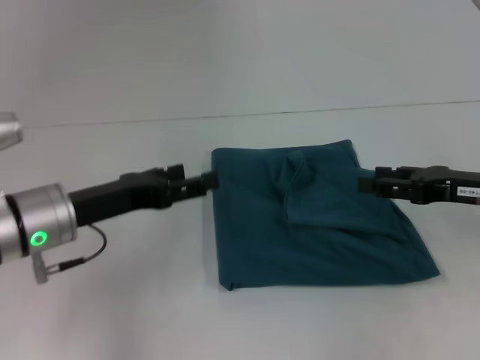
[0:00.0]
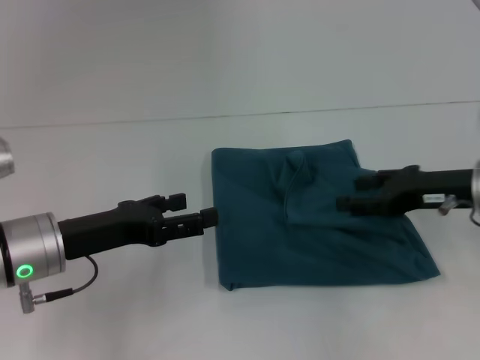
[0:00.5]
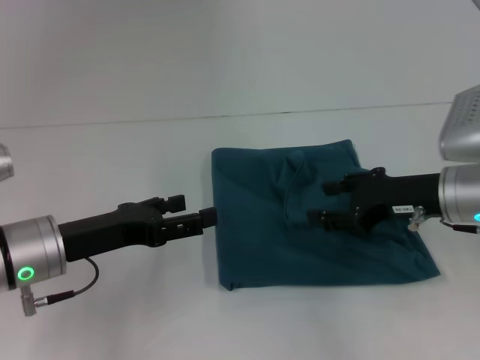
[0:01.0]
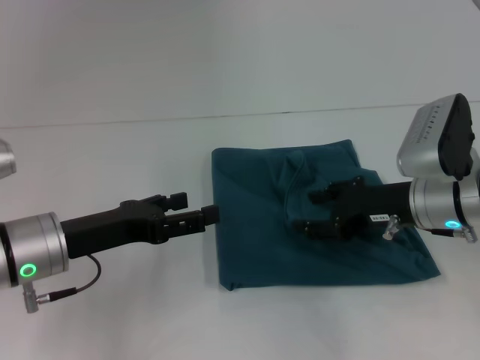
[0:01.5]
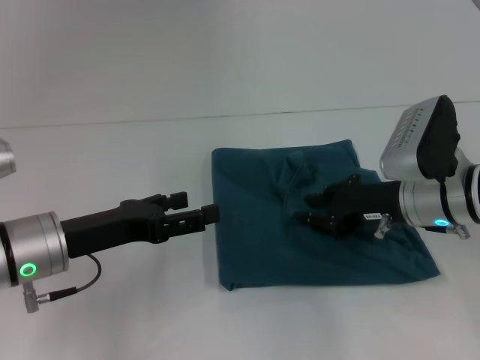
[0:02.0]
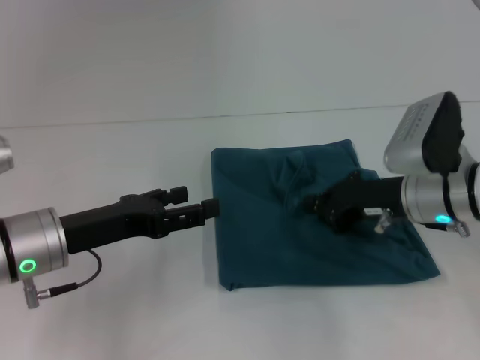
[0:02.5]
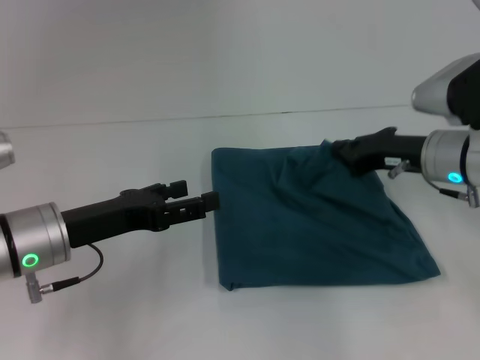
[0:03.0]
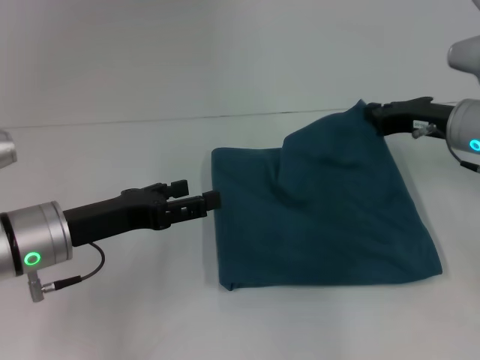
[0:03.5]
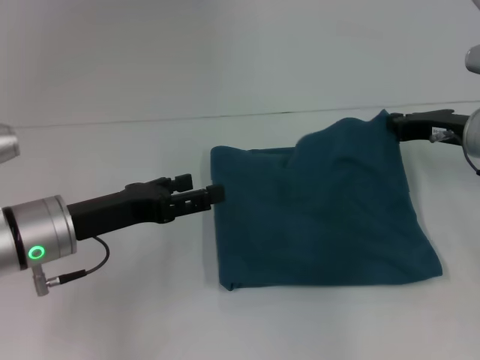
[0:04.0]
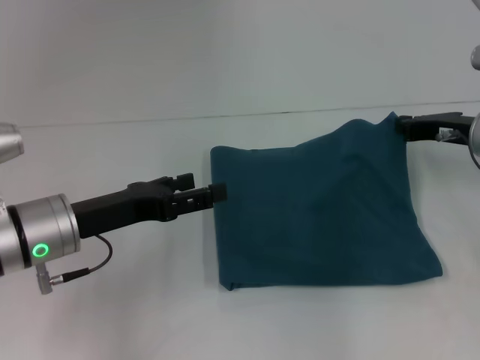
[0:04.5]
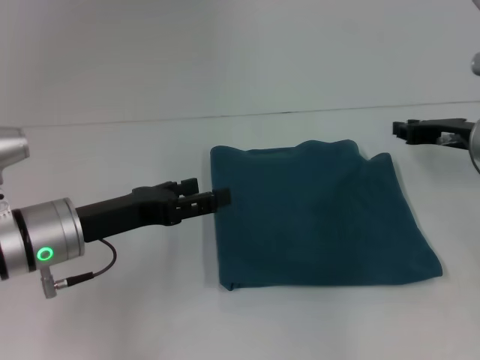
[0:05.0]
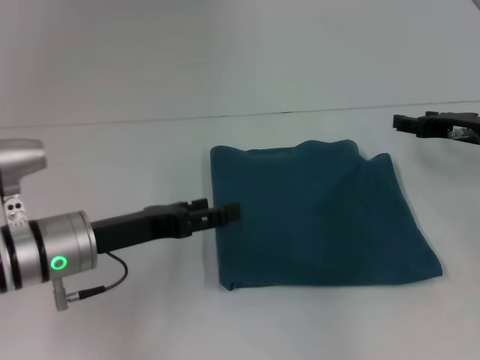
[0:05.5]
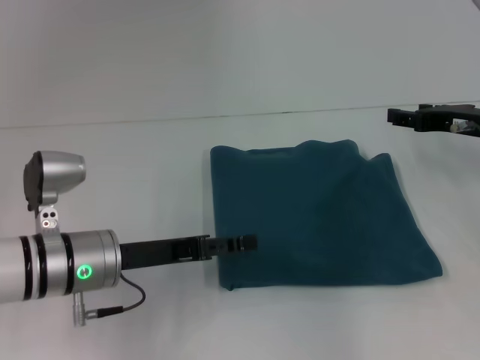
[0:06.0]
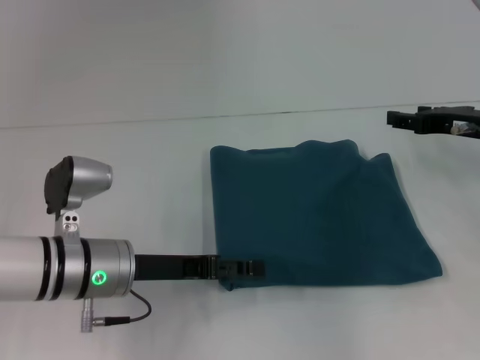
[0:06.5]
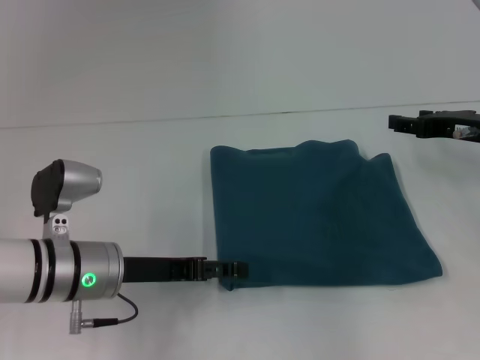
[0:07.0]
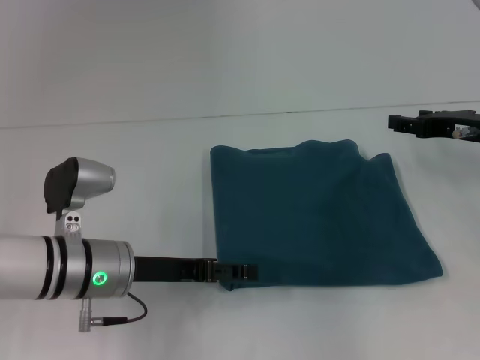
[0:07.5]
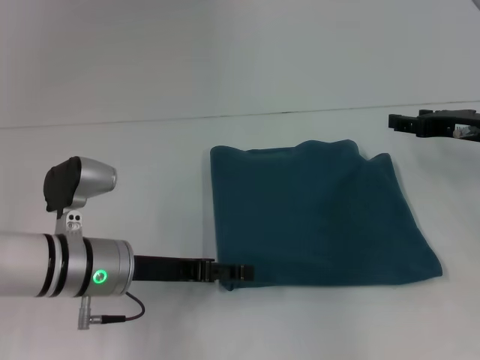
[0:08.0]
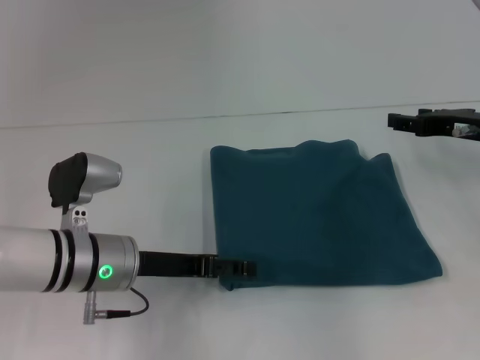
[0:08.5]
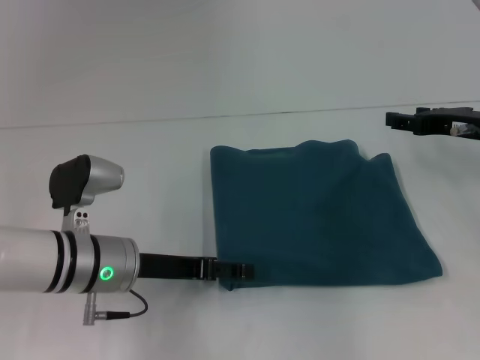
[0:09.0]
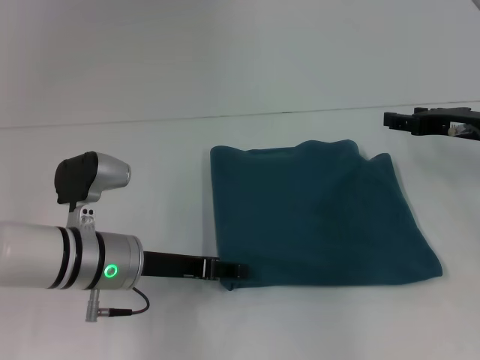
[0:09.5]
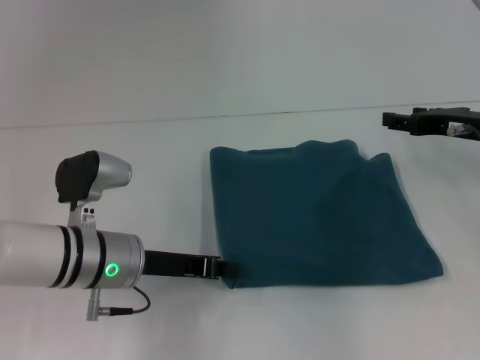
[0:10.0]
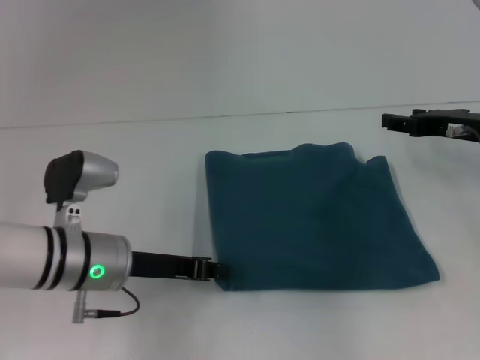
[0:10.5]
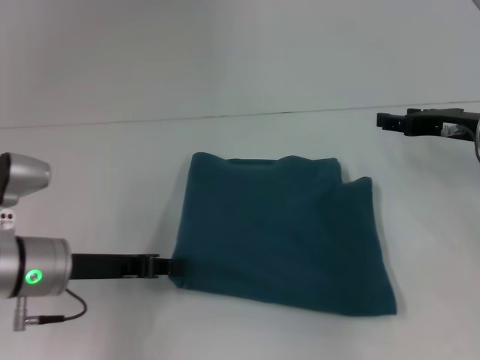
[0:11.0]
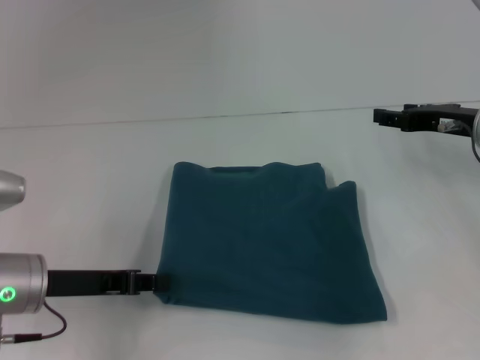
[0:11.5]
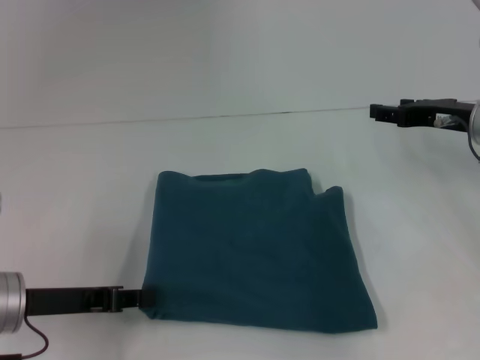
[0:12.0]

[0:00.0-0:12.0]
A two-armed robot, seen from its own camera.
0:00.0 to 0:02.0: The right gripper moves to the left, roughly 10 cm.
0:02.0 to 0:04.0: The right gripper travels to the right by approximately 5 cm, and closes up.
0:04.0 to 0:06.0: The right gripper opens its fingers.
0:06.0 to 0:08.0: The grippers move only a little.
0:08.0 to 0:10.0: The left gripper closes up.
0:10.0 to 0:12.0: The left gripper shifts roughly 10 cm to the left.

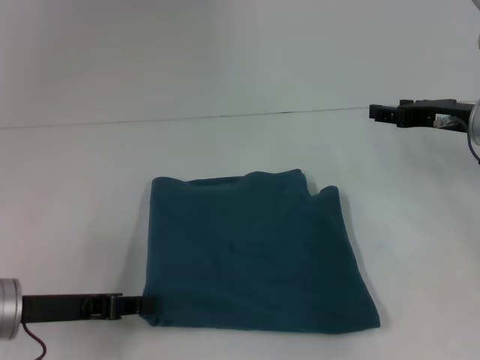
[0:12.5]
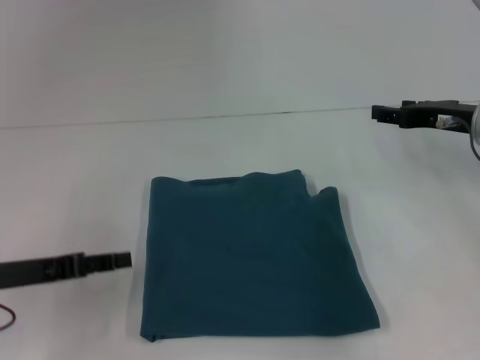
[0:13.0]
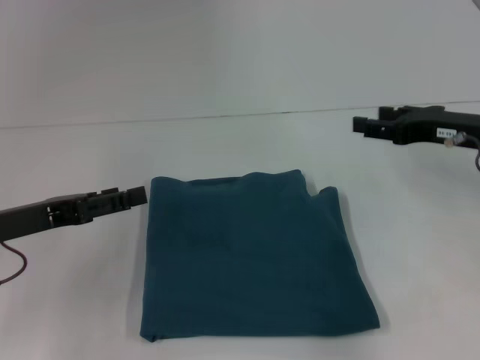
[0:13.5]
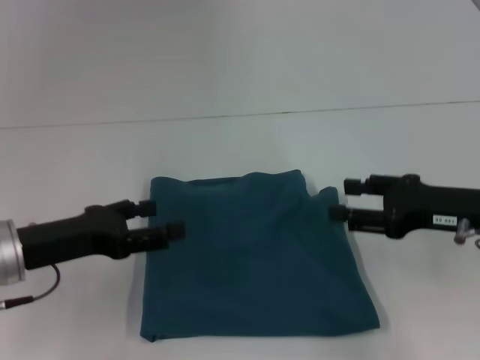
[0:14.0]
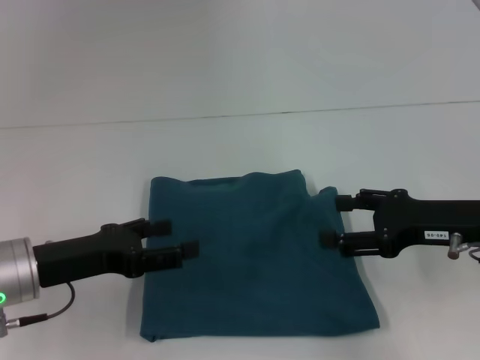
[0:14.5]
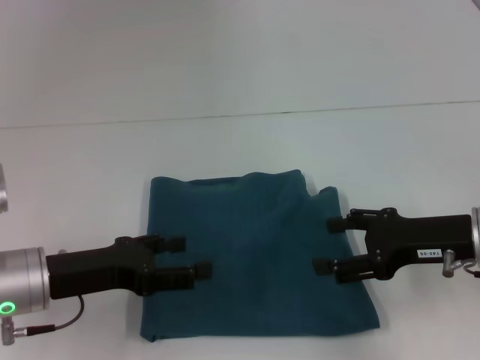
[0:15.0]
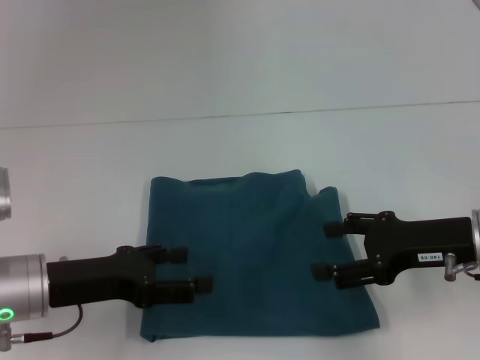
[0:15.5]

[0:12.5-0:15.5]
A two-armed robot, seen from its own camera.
0:12.5 to 0:14.0: The left gripper opens, while the right gripper is displaced backward by about 10 cm.
0:14.0 to 0:15.5: The grippers make only small movements.

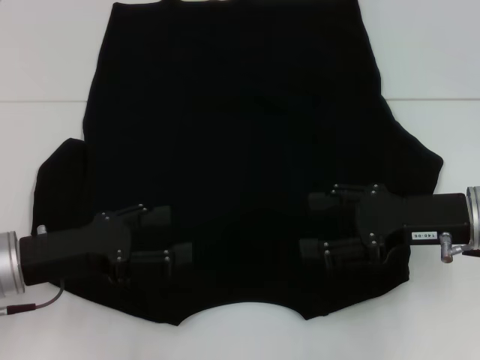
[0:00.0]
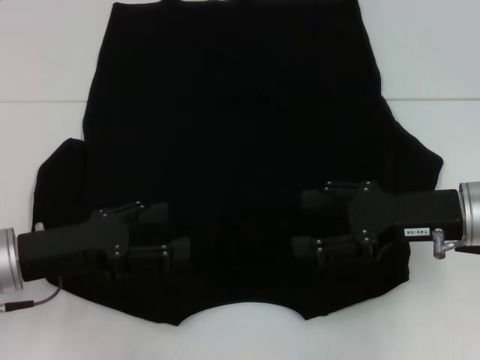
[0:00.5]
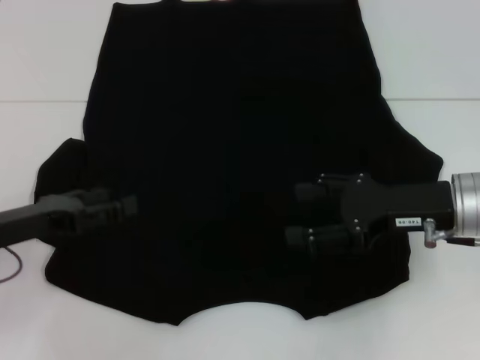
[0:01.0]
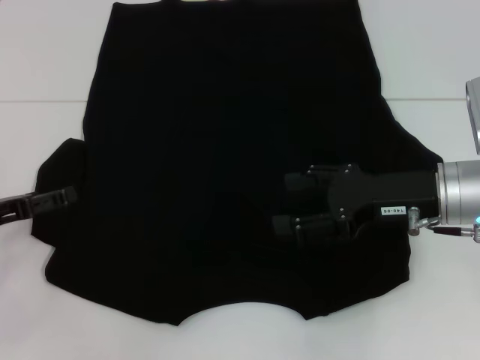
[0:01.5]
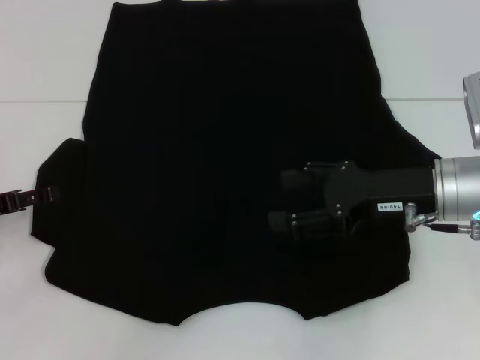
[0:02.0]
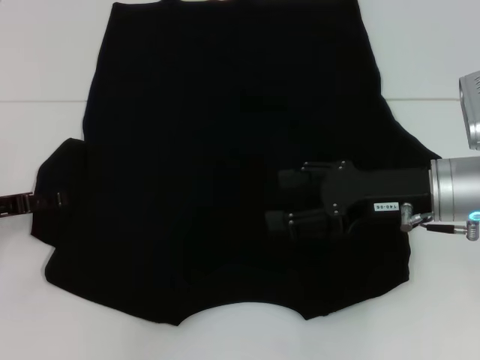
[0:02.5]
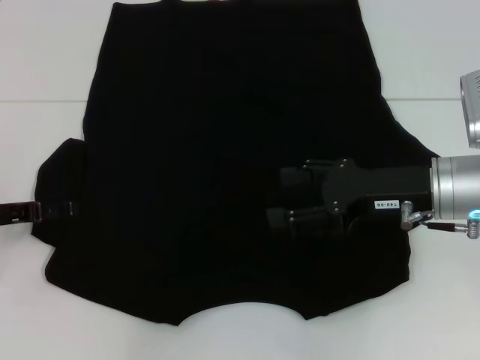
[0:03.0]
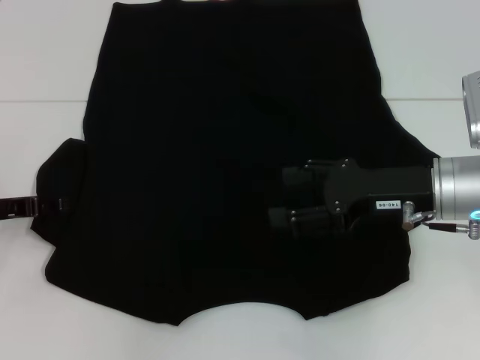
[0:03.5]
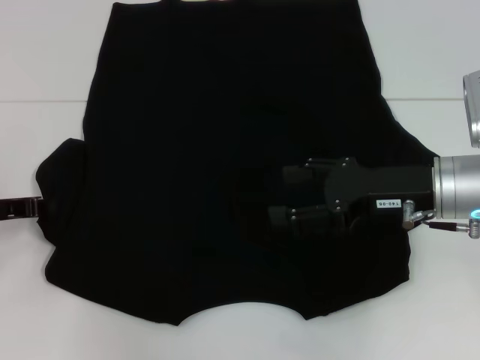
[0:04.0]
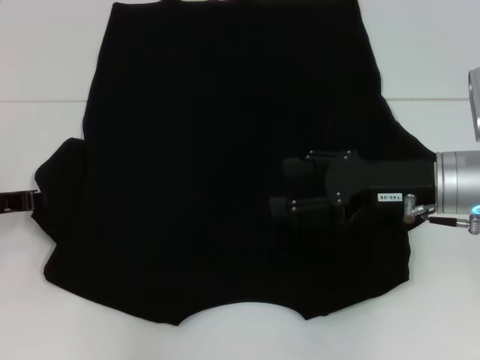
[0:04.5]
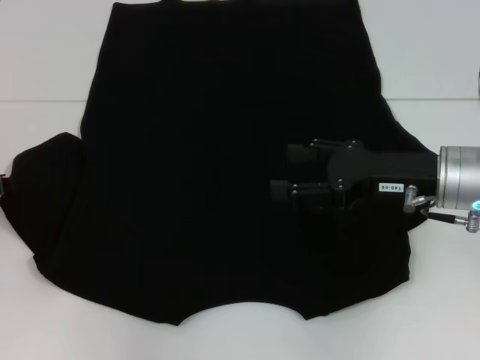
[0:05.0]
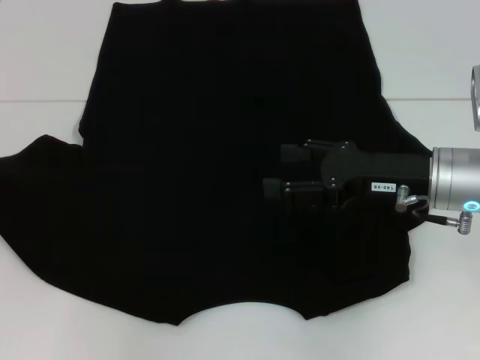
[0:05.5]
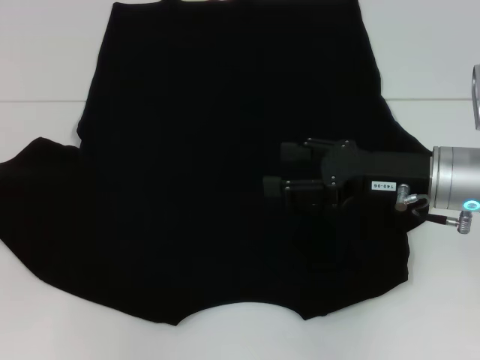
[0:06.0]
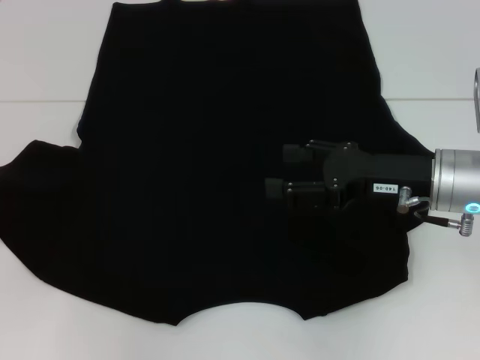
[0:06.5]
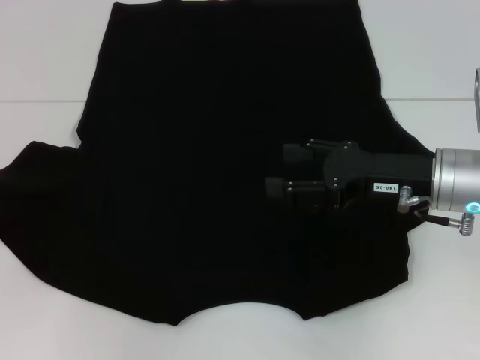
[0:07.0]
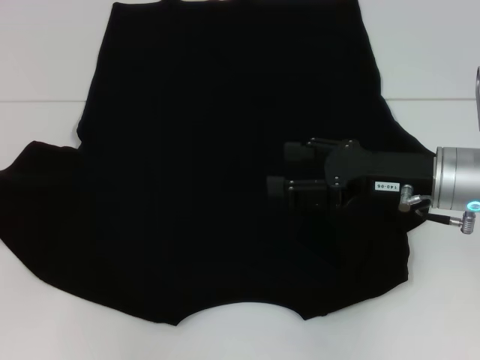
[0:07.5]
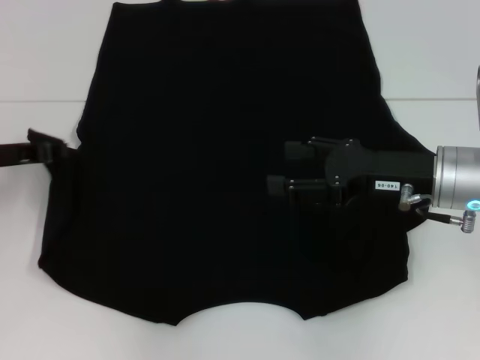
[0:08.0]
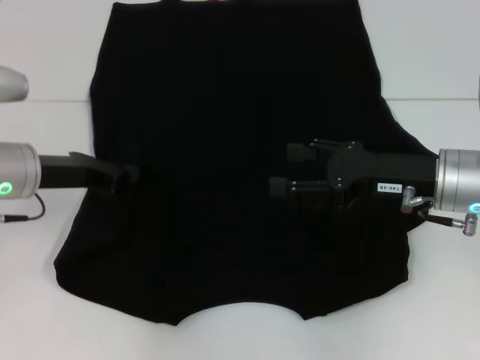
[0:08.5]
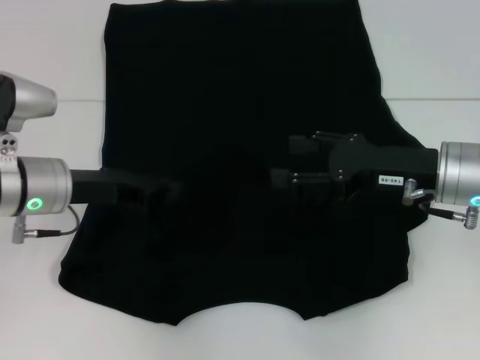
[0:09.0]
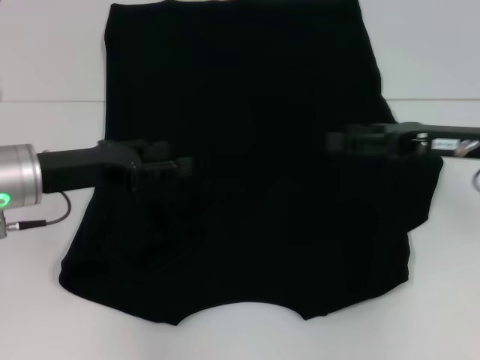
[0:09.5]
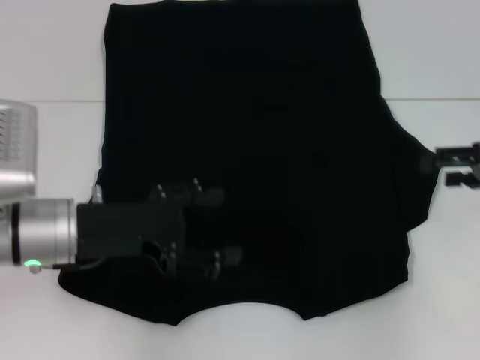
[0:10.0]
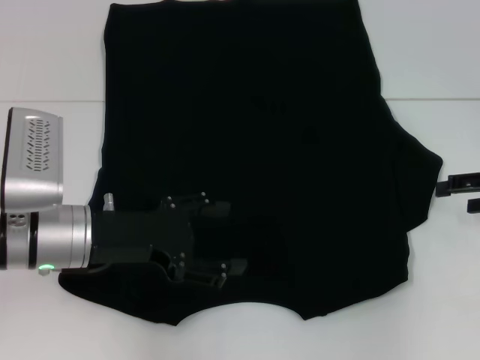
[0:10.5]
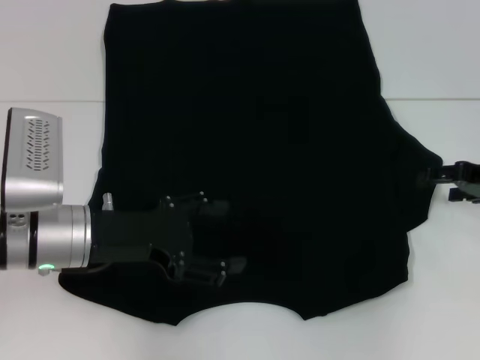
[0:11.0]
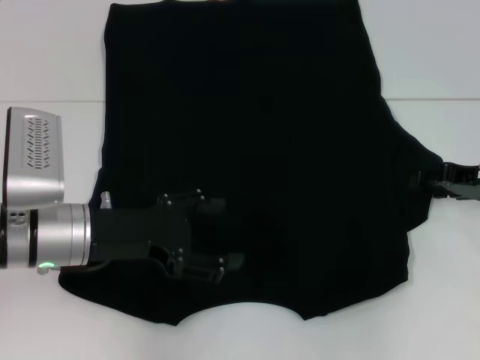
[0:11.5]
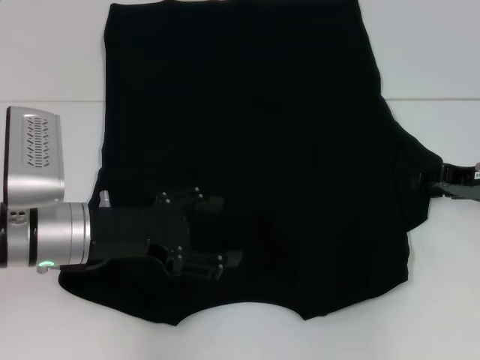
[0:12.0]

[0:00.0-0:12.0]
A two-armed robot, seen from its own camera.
Step, 0:00.0 to 0:09.0: Fold the bottom left sleeve with your left hand.
0:00.0 to 0:02.0: The left gripper heads to the left, covering about 10 cm.
0:02.0 to 0:04.0: The left gripper closes.
0:04.0 to 0:06.0: The left gripper moves to the left, approximately 5 cm.
0:06.0 to 0:08.0: The left gripper moves to the right, approximately 5 cm.
0:08.0 to 0:10.0: The right gripper heads to the right, covering approximately 15 cm, while the left gripper shifts about 10 cm to the right and backward, and opens up.
0:10.0 to 0:12.0: The right gripper moves approximately 5 cm, and closes.
